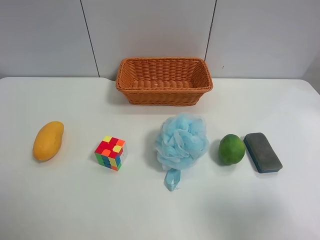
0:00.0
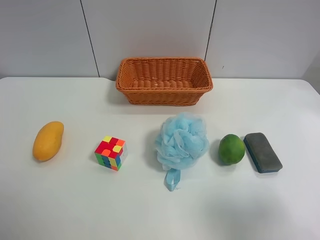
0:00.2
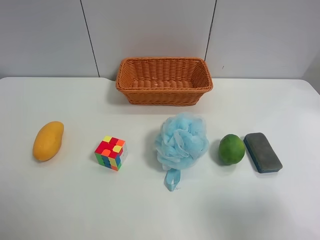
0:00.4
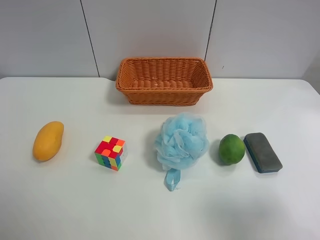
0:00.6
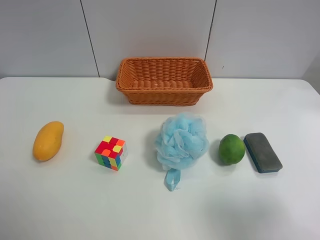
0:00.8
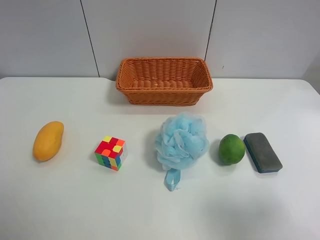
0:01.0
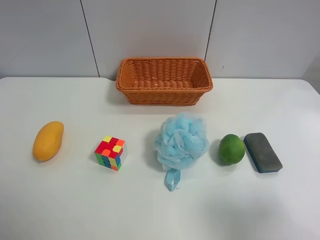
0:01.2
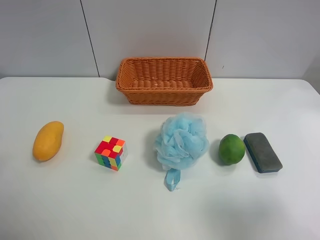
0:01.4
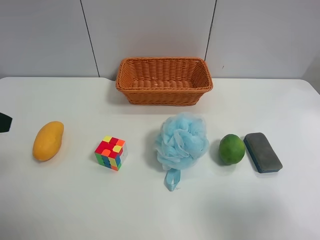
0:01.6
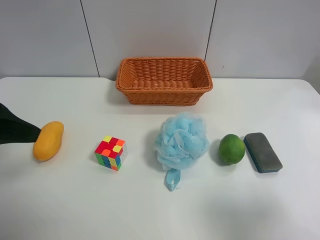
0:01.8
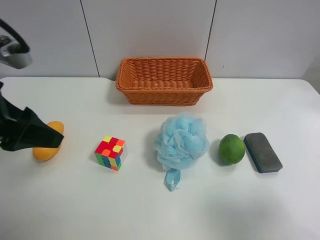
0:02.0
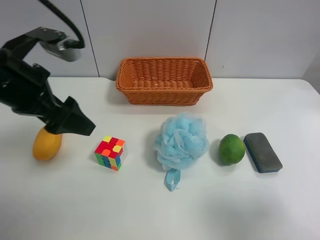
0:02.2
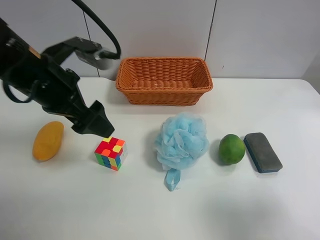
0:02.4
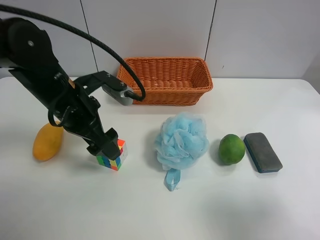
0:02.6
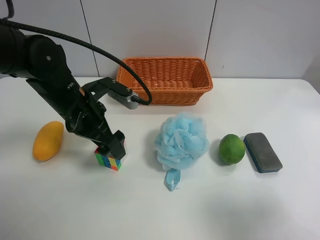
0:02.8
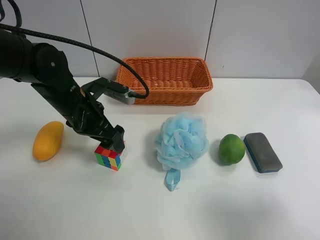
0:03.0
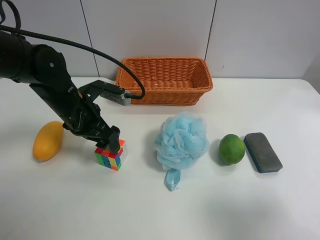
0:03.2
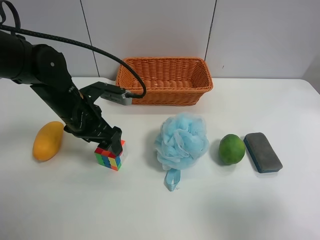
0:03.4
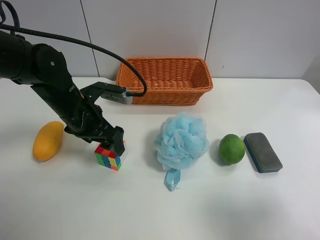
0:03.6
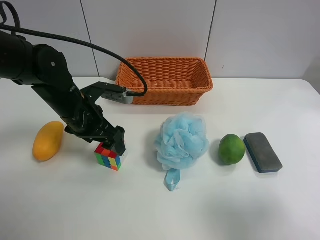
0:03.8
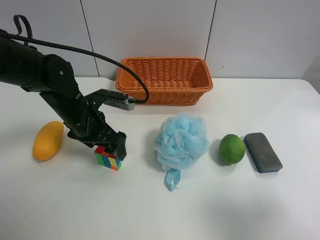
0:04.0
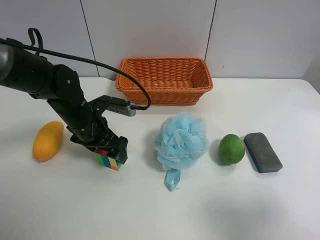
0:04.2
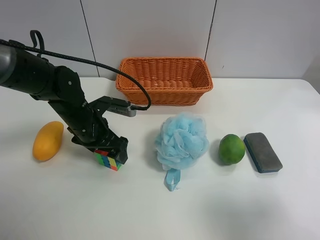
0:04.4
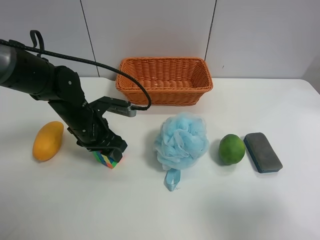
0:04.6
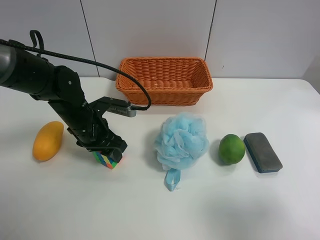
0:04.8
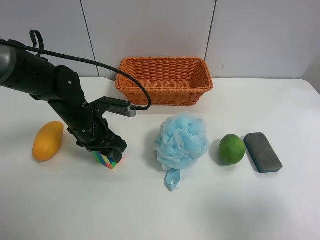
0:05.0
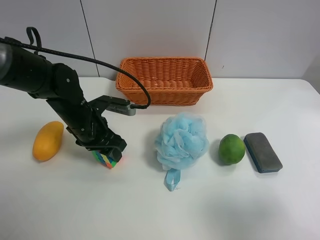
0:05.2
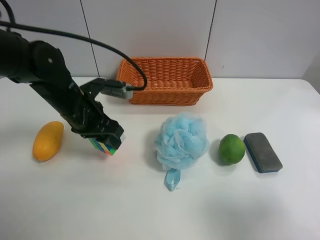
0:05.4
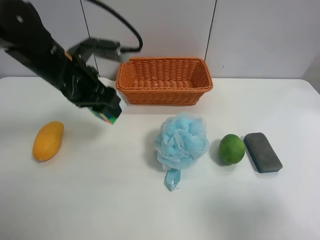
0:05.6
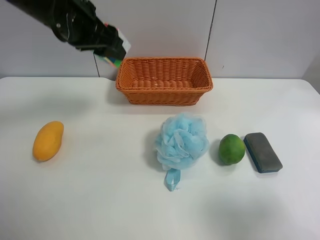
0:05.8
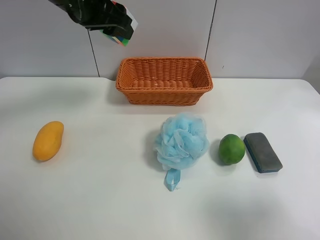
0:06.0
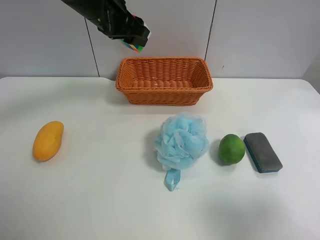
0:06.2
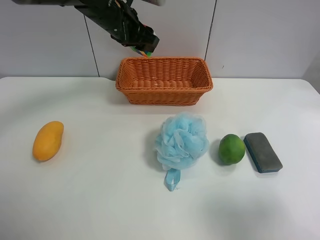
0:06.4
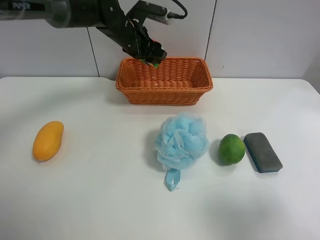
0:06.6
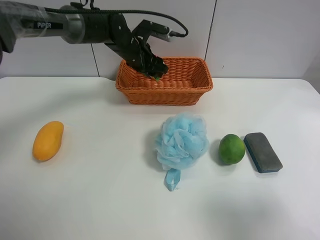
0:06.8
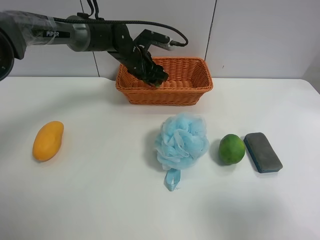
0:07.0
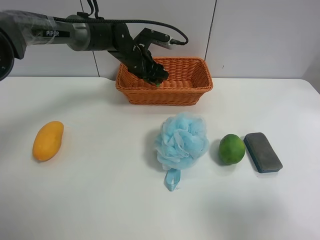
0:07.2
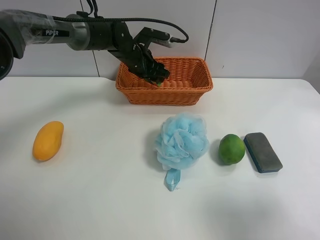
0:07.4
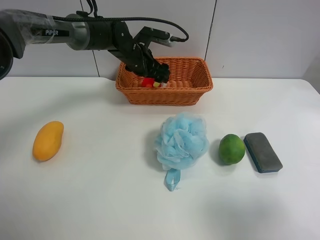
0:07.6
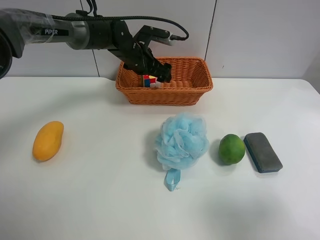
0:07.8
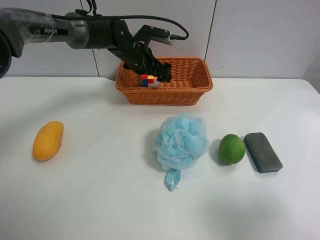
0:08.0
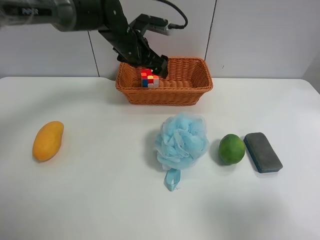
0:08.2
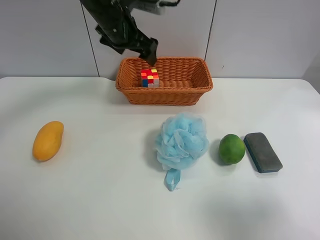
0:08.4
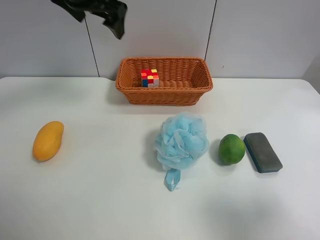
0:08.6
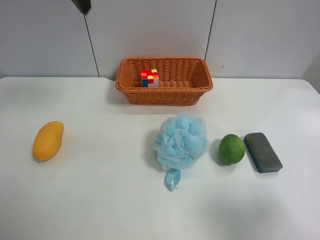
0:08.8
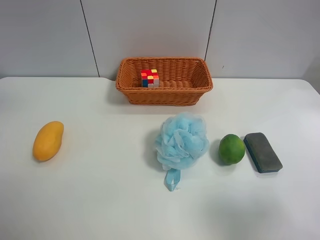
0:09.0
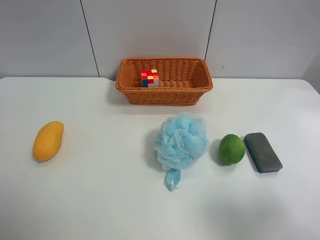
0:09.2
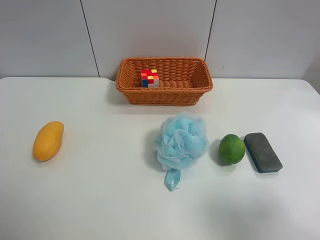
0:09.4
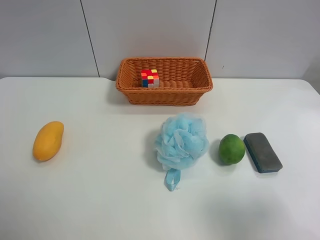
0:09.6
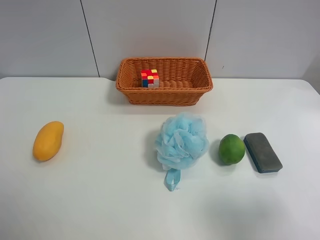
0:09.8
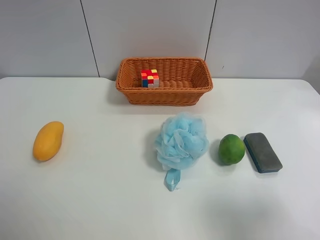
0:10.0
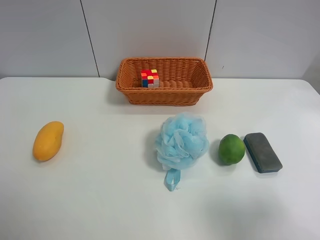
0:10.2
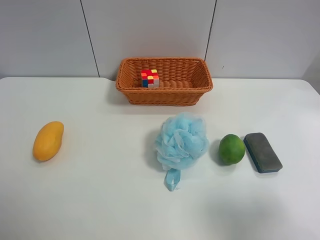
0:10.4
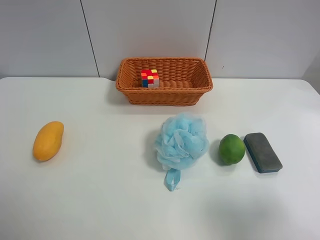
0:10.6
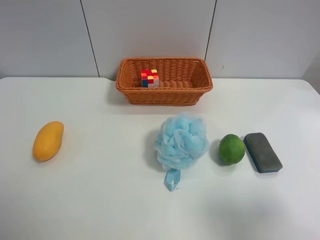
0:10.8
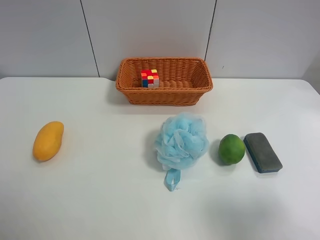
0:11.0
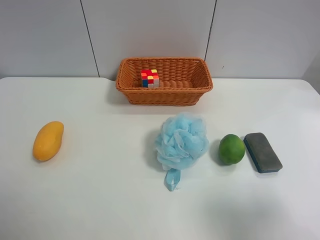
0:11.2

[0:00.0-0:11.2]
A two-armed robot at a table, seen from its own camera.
Task of the whole recording: use the left gripper to grab items from the table and place them in the basket.
Step, 0:00.0 to 0:05.0: Grasp the Rubik's Cube with the left gripper.
Step, 0:05.2 to 0:07.6: Place the Rubik's Cube into the basket with the left gripper.
0:01.6 to 0:03.2: The left gripper is displaced forward, downward and to the right by approximately 25 cm.
0:03.2 to 0:04.8: The left gripper closes its fingers.
0:04.8 to 0:06.4: The left gripper moves upward, forward and to the right, about 20 cm.
0:06.4 to 0:08.0: The left gripper shifts roughly 10 cm downward, and opens its fingers.
0:08.0 to 0:09.6: The left gripper is displaced backward, upward and to the left by about 60 cm.
